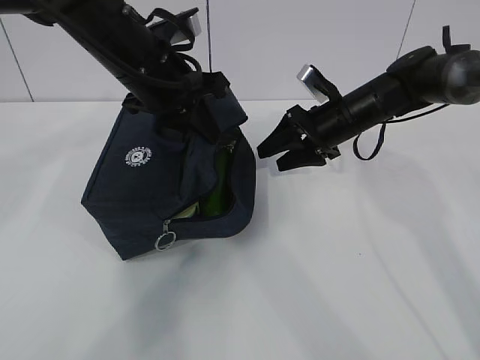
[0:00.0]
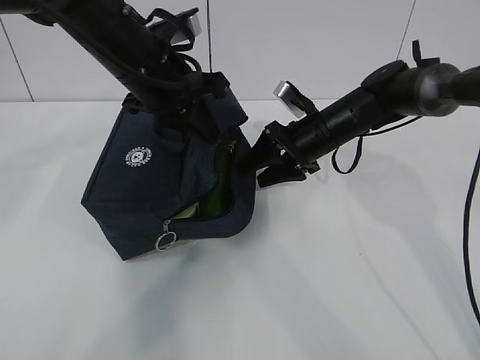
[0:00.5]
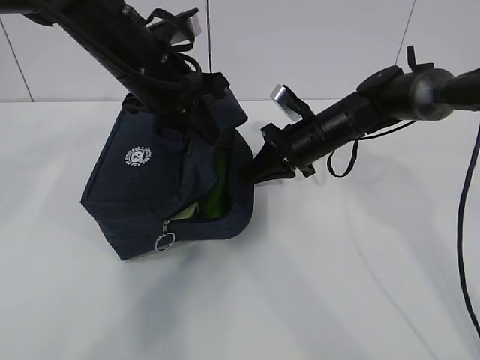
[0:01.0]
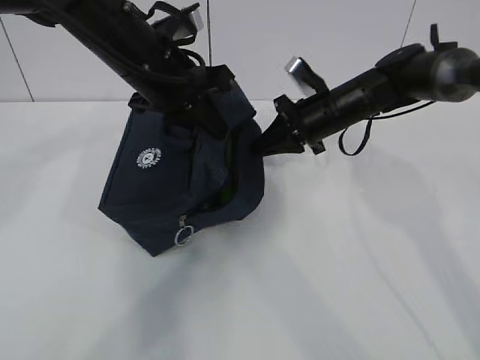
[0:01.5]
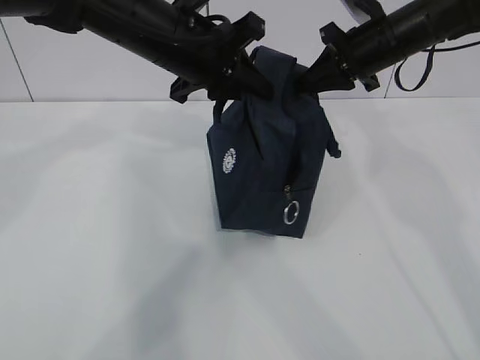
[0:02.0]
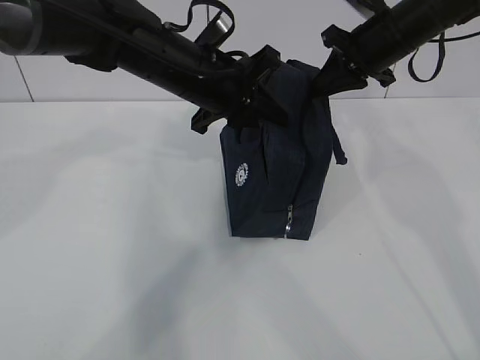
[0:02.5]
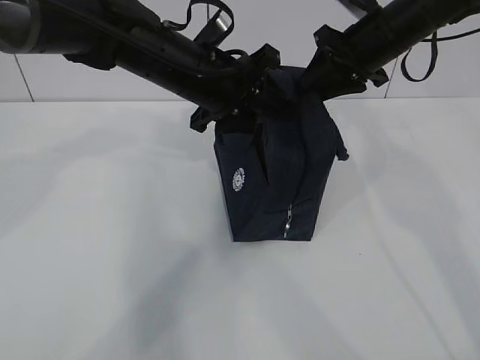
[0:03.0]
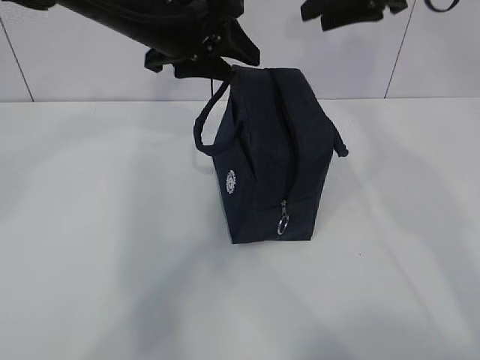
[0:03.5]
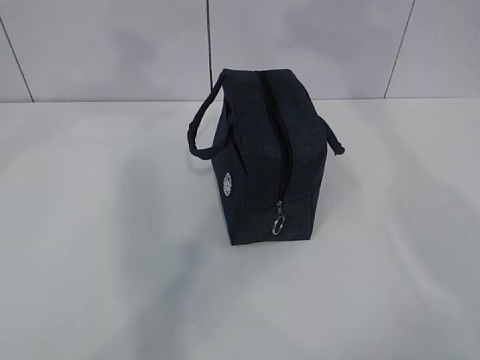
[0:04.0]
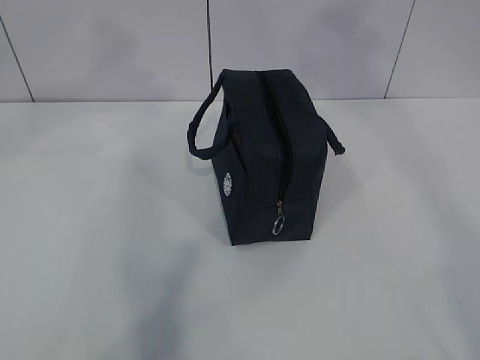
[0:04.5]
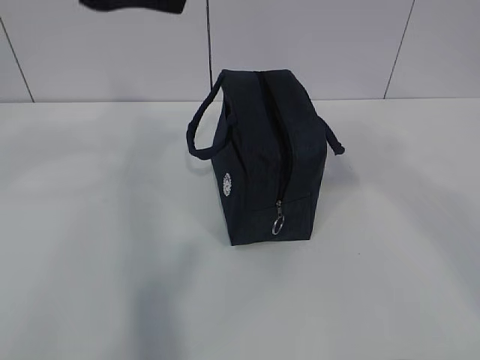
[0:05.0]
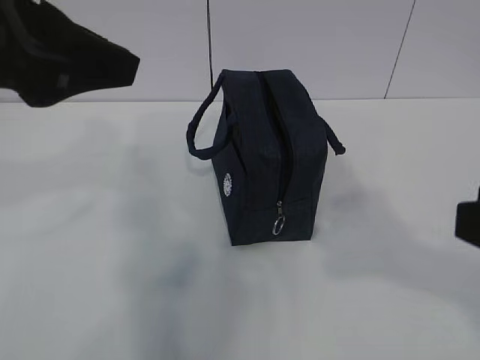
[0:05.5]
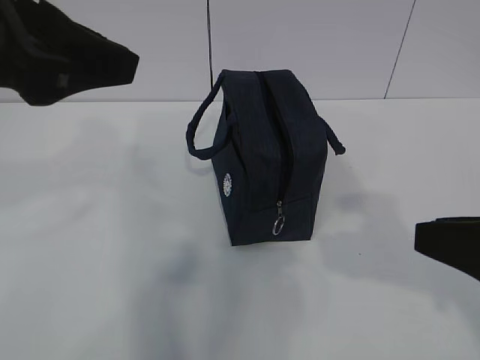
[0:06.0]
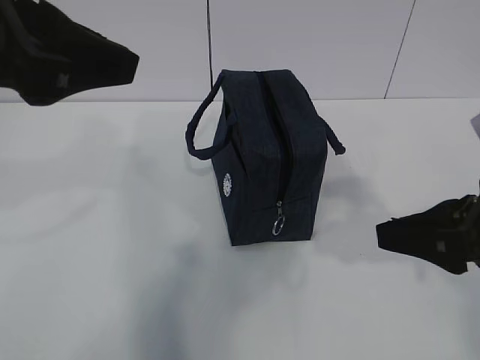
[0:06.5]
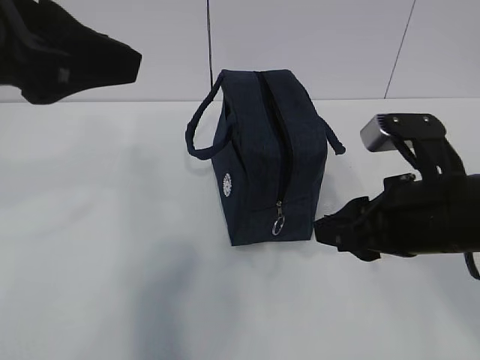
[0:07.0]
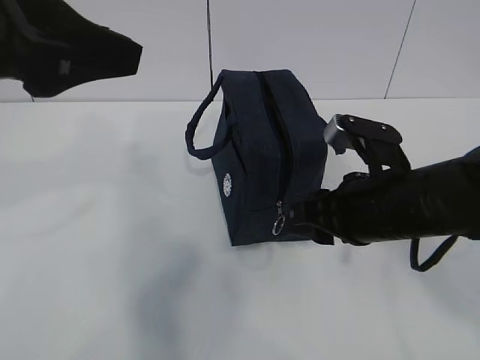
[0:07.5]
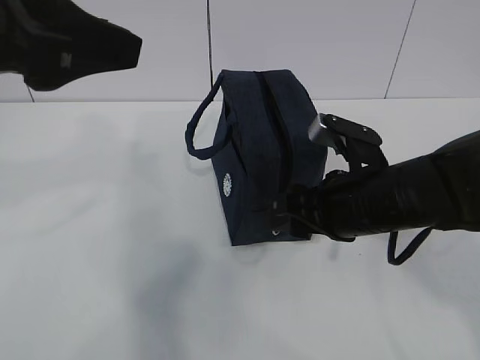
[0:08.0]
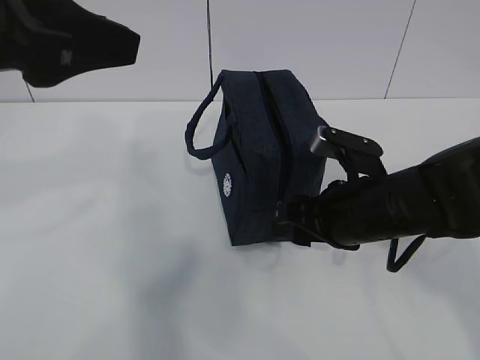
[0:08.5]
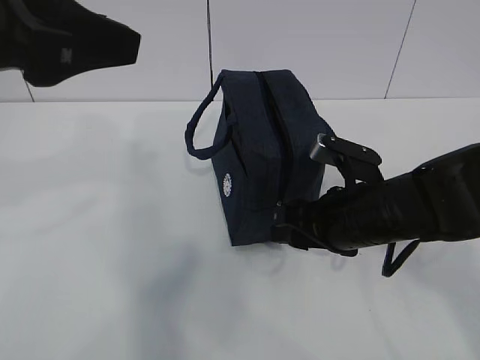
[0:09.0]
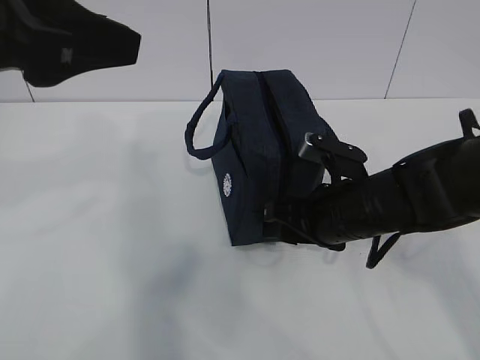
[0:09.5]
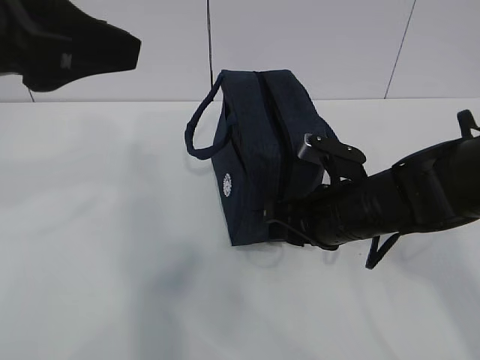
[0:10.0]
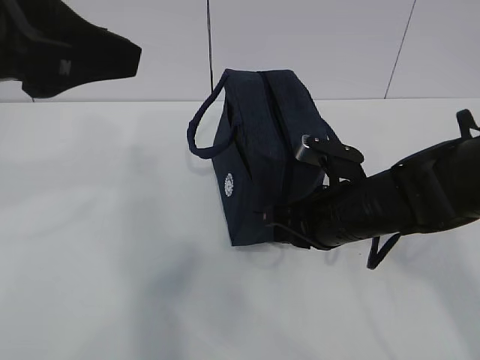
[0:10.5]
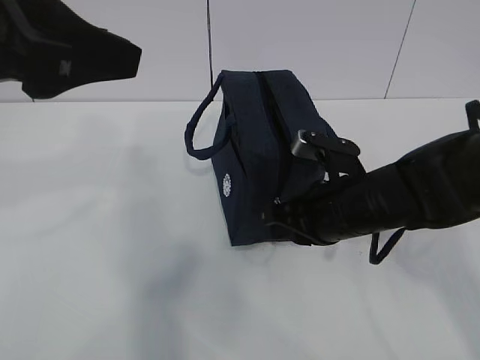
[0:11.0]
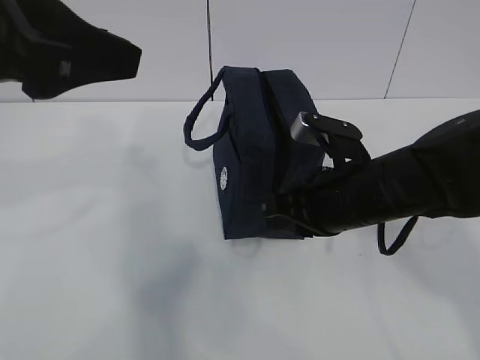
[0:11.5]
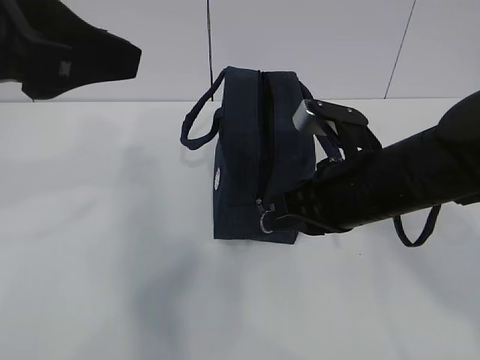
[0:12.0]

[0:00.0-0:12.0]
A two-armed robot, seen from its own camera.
0.0 to 2.0 s: The right gripper shifts some 10 cm upward, and closes up.
2.0 to 4.0 s: The left gripper moves upward and to the left, roughly 15 cm, and opens, while the right gripper moves upward and backward, some 30 cm, and opens up.
4.0 to 6.0 s: The left gripper is displaced backward by about 15 cm, while the right gripper is displaced downward and backward by some 35 cm.
6.0 to 8.0 s: The right gripper heads forward, to the left and downward, covering about 20 cm.
8.0 to 10.0 s: The grippers make only small movements.
10.0 to 12.0 s: The right gripper travels upward by roughly 5 cm, and closes.

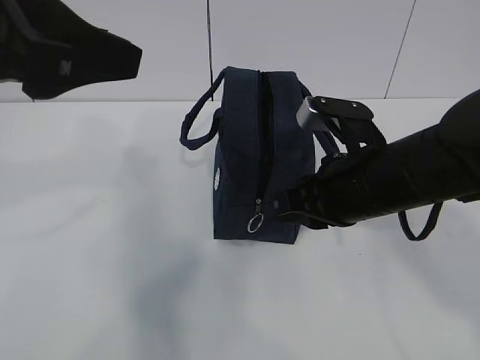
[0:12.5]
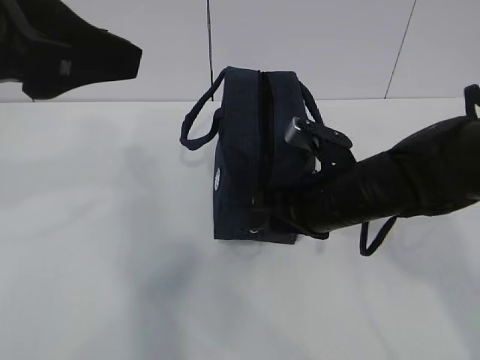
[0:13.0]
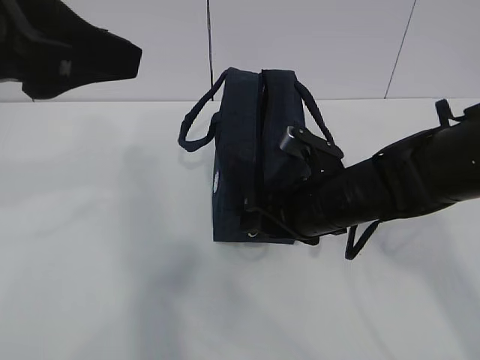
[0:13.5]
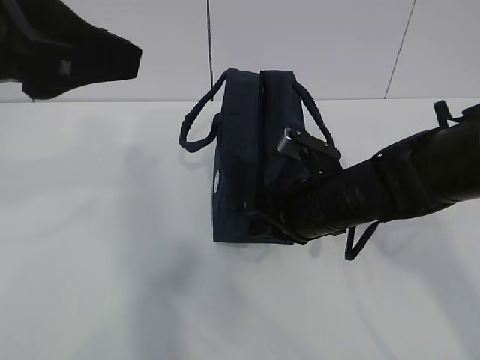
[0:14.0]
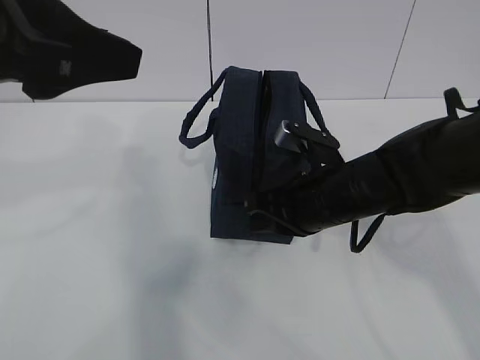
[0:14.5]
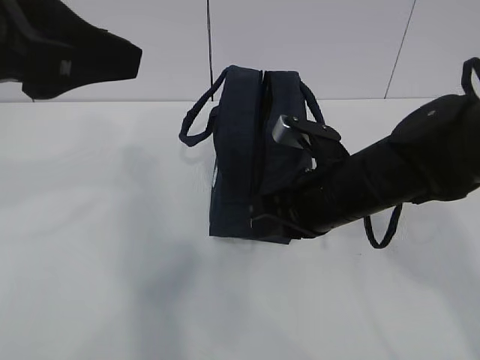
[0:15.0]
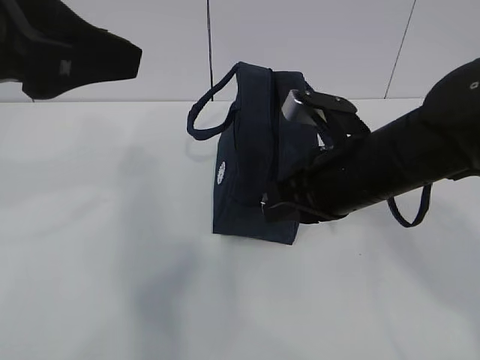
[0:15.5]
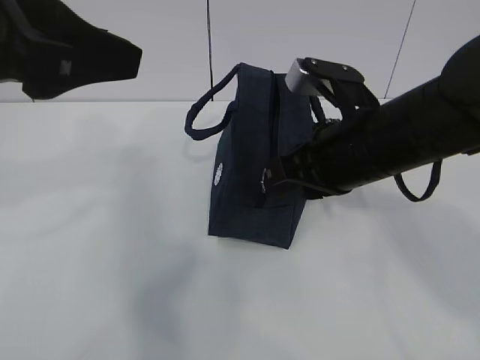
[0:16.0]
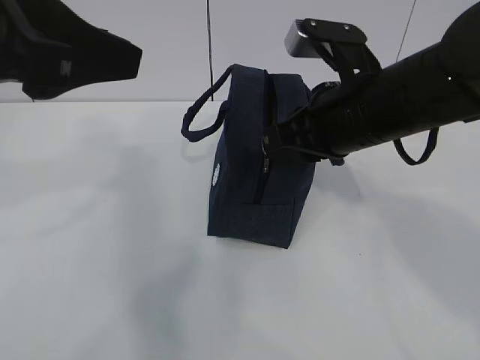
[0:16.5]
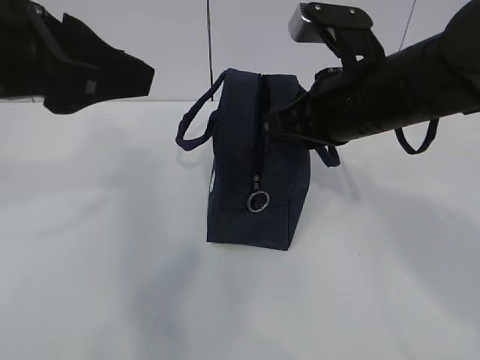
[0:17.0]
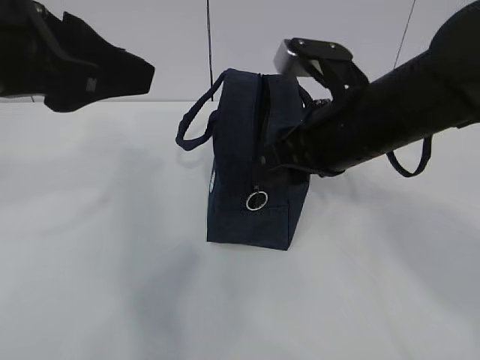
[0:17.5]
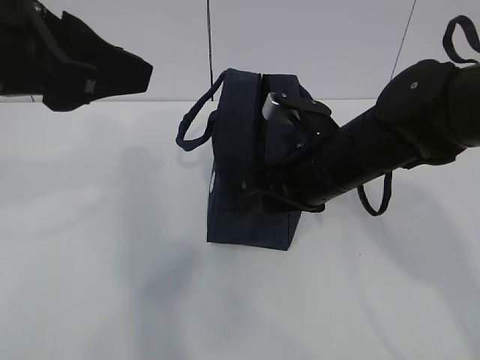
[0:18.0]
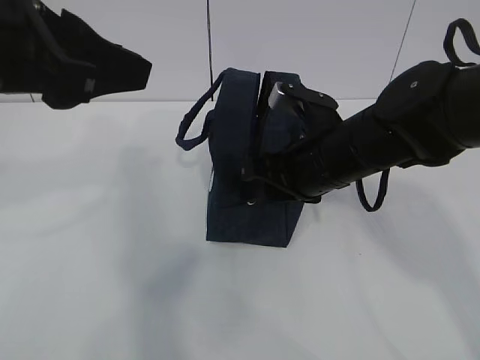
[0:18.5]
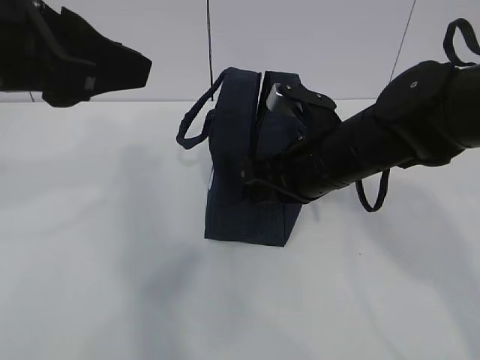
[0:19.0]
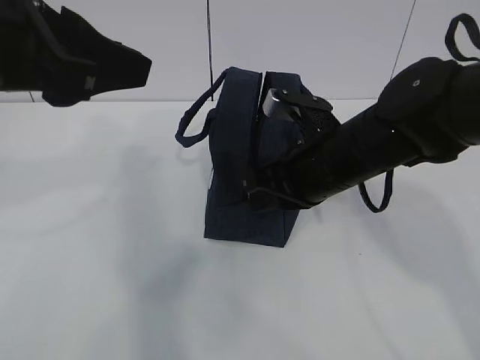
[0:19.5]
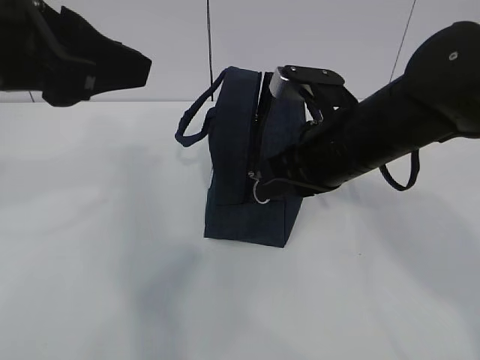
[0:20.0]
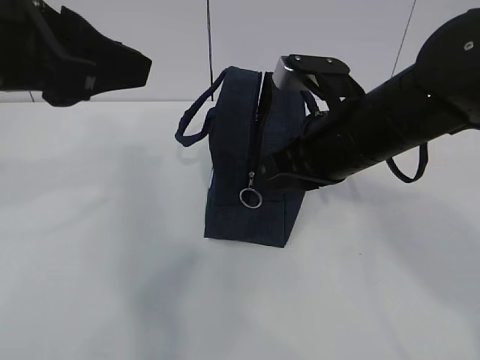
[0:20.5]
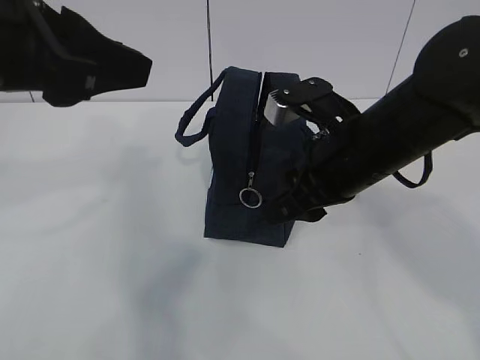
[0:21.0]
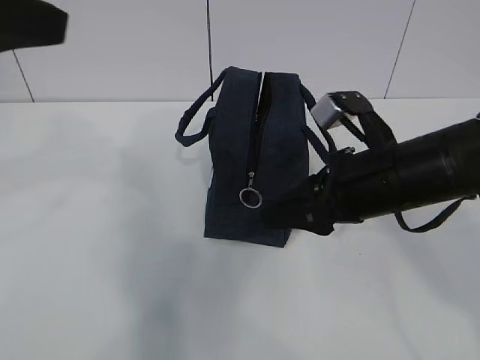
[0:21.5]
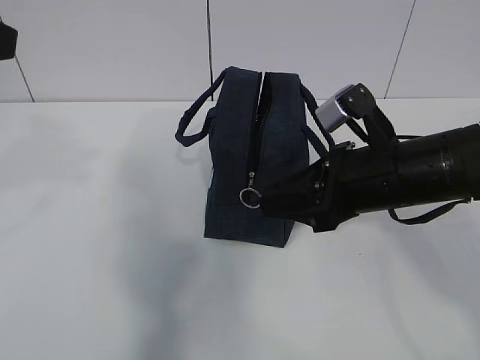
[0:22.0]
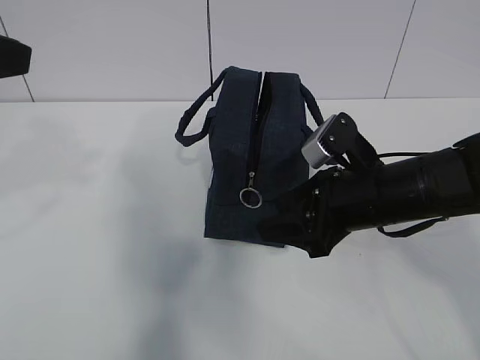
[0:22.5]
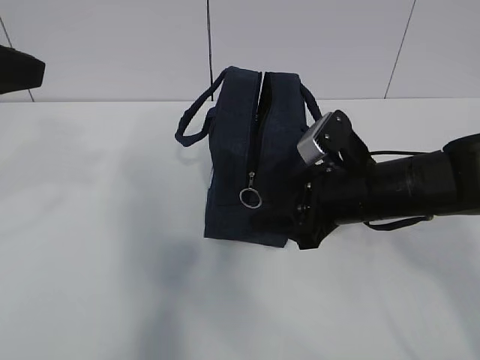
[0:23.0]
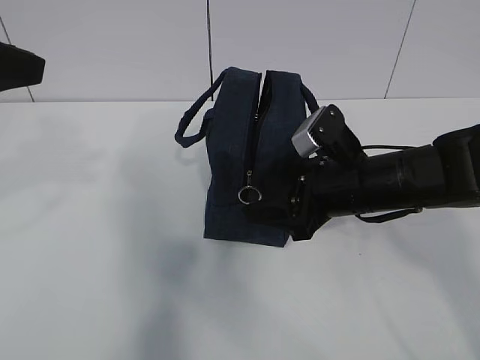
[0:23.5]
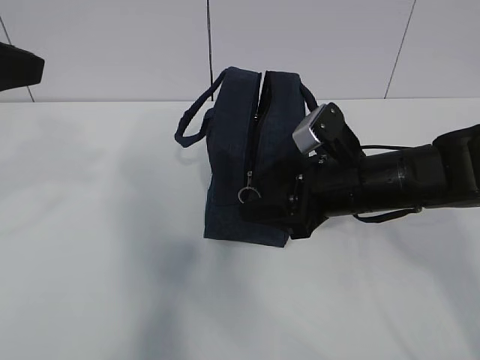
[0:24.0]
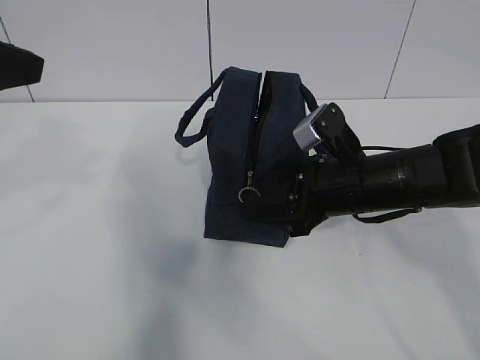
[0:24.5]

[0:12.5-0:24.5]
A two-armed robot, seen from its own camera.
12.5 to 14.5 s: The right gripper changes place by some 5 cm, and opens, then closes again.
14.5 to 16.5 s: The right gripper shifts roughly 10 cm upward.
16.5 to 18.5 s: The right gripper shifts about 5 cm downward, and opens up.
18.5 to 20.5 s: The right gripper shifts by approximately 5 cm, and closes up.
20.5 to 22.5 s: The right gripper shifts about 5 cm downward, and opens up; the left gripper goes some 5 cm to the left.
22.5 to 24.5 s: The grippers stay close to where they were, moving slightly.

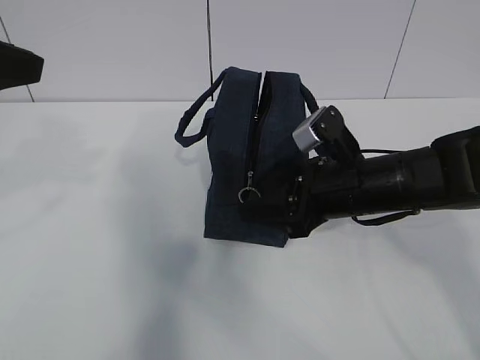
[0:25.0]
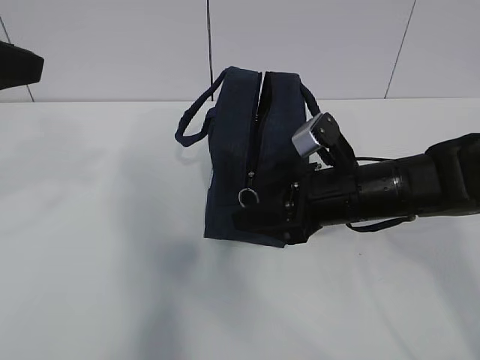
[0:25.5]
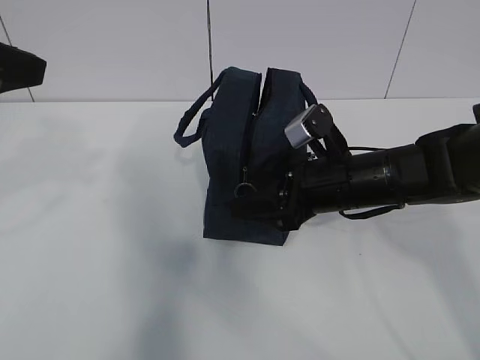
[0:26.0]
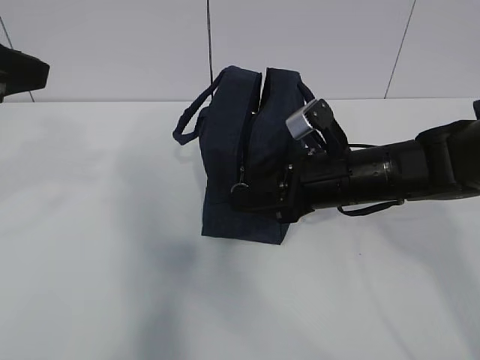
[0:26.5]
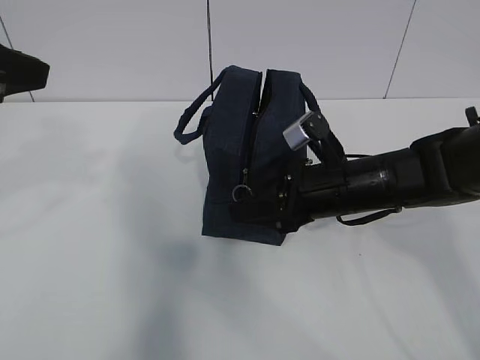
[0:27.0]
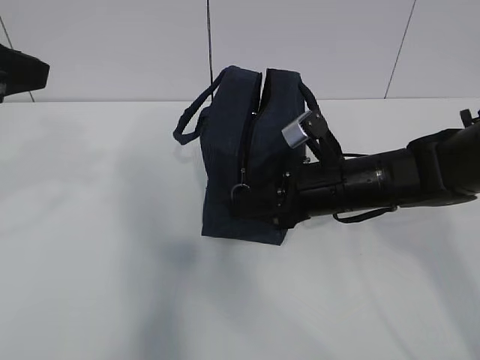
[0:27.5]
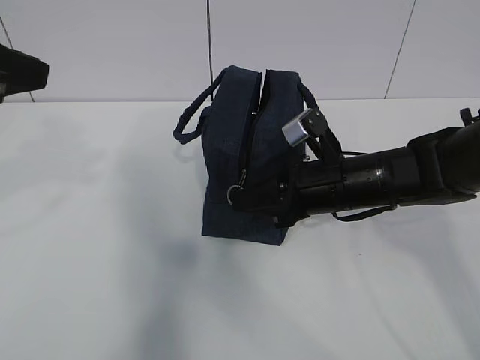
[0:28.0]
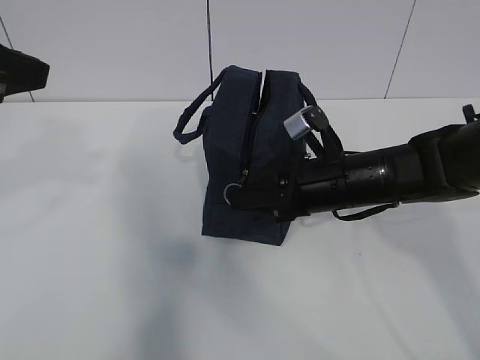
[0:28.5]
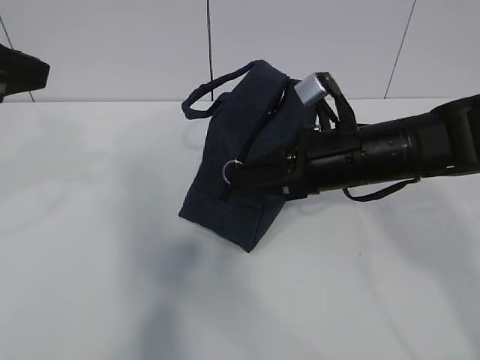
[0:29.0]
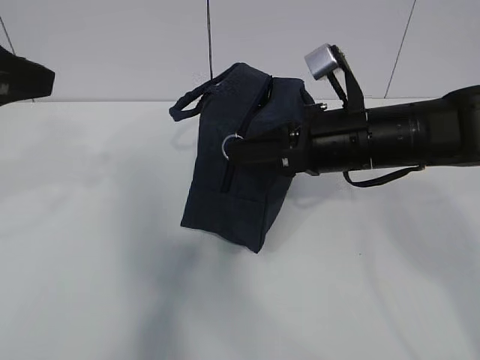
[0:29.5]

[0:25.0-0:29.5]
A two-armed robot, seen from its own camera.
25.0 to 27.0 s: The grippers stay close to where they were, moving slightly.
27.0 to 29.5 s: The right gripper heads upward, covering about 5 cm, and closes up.
